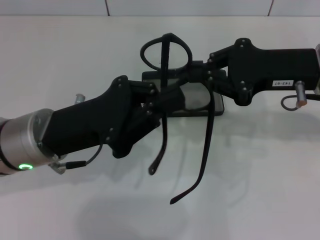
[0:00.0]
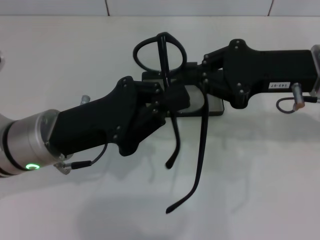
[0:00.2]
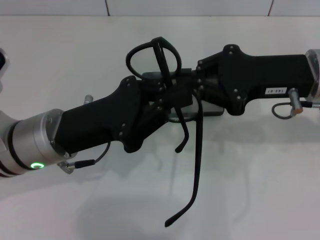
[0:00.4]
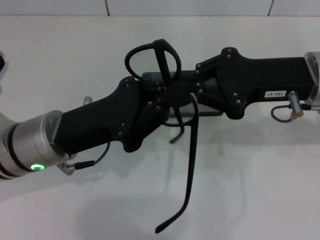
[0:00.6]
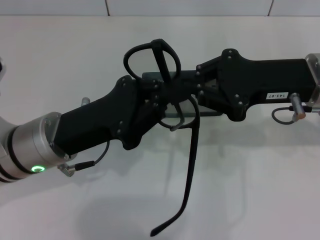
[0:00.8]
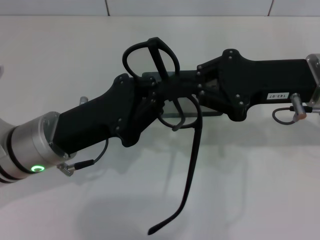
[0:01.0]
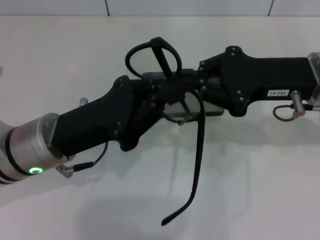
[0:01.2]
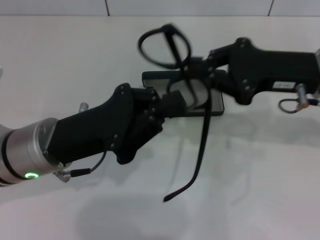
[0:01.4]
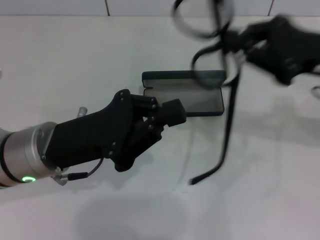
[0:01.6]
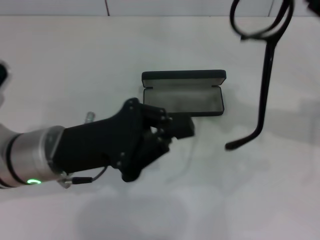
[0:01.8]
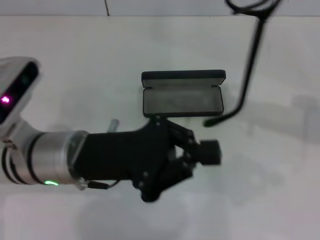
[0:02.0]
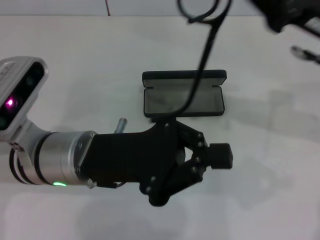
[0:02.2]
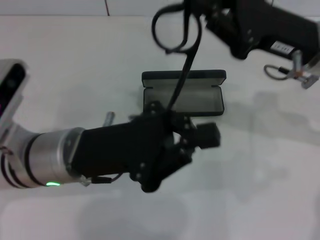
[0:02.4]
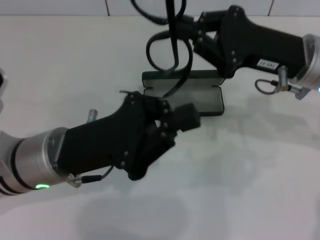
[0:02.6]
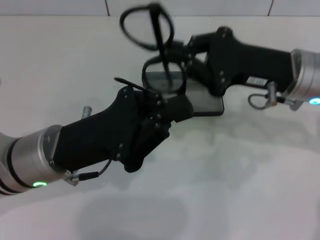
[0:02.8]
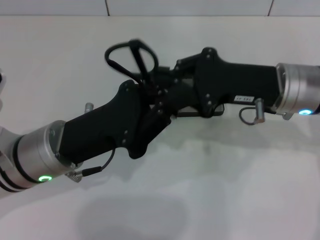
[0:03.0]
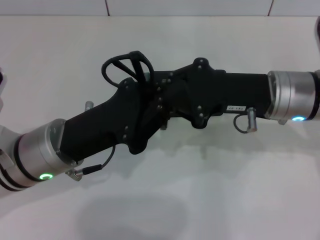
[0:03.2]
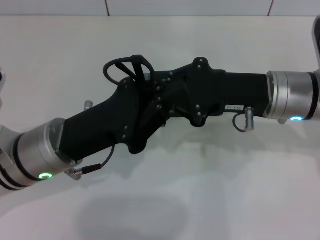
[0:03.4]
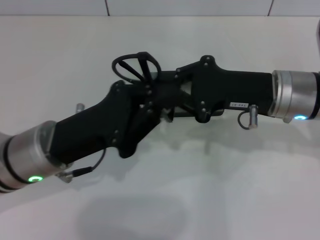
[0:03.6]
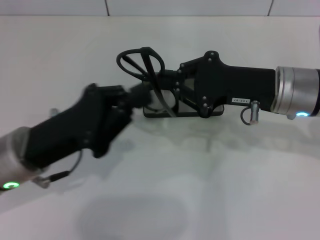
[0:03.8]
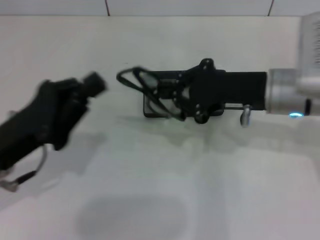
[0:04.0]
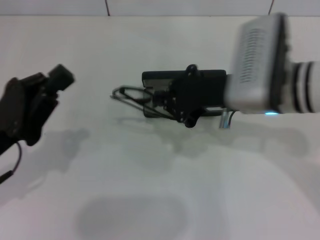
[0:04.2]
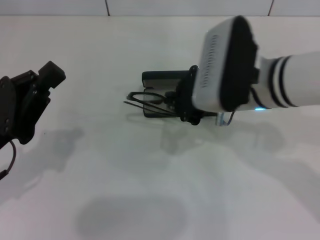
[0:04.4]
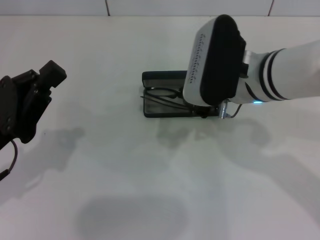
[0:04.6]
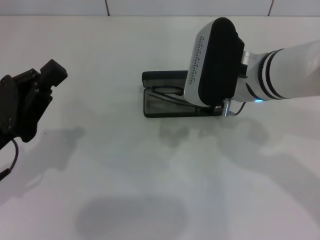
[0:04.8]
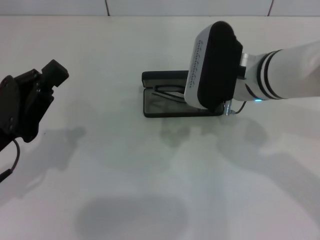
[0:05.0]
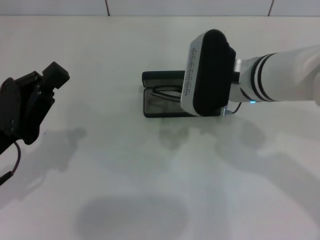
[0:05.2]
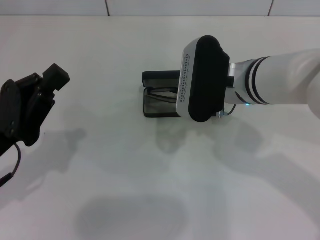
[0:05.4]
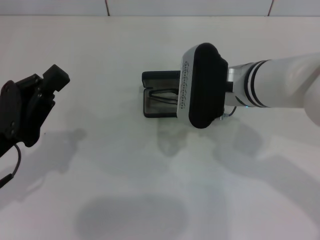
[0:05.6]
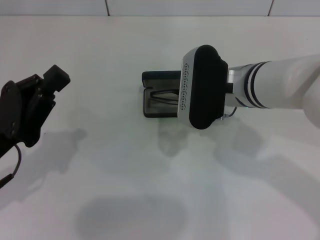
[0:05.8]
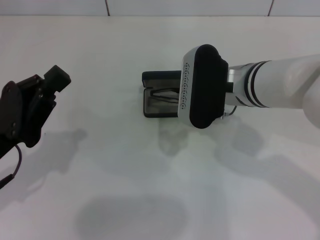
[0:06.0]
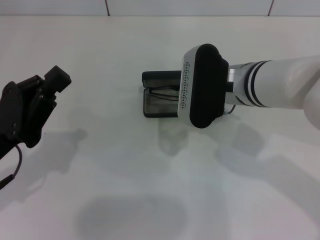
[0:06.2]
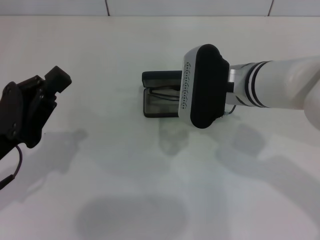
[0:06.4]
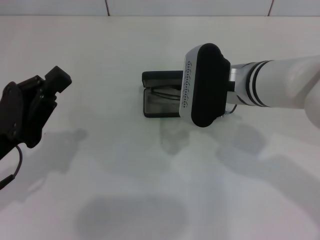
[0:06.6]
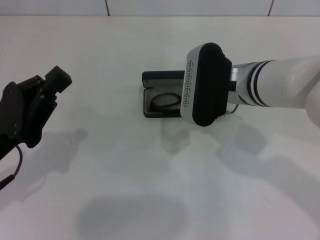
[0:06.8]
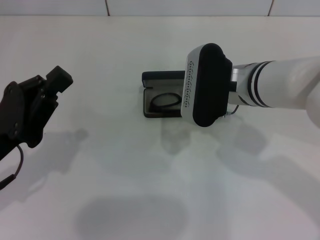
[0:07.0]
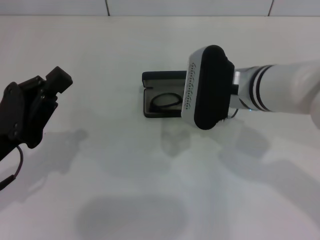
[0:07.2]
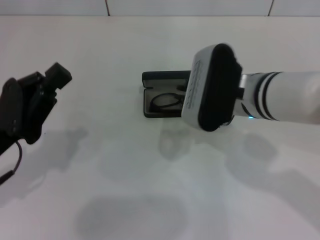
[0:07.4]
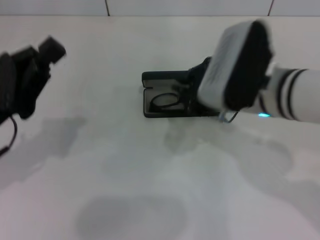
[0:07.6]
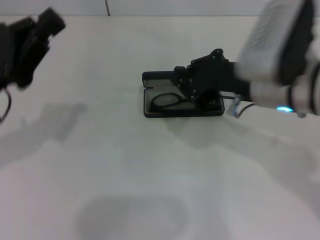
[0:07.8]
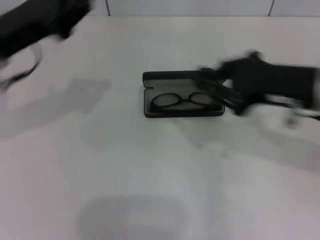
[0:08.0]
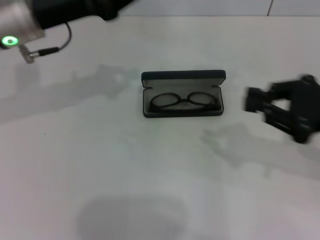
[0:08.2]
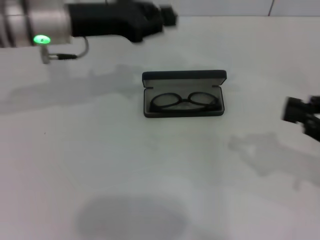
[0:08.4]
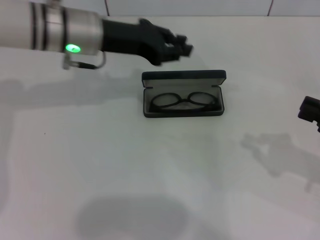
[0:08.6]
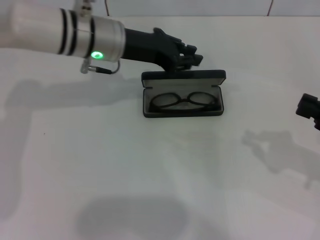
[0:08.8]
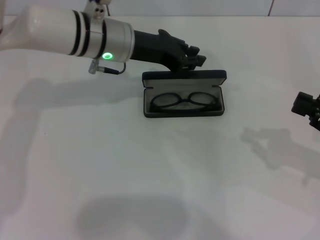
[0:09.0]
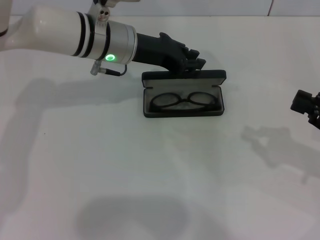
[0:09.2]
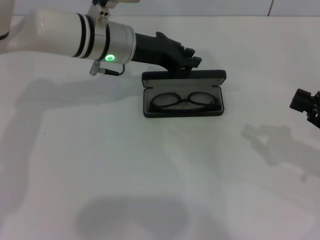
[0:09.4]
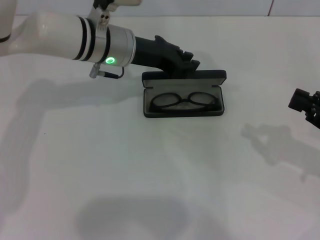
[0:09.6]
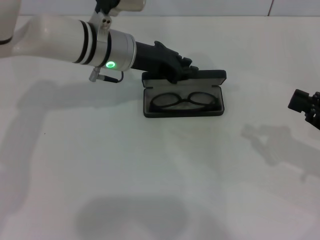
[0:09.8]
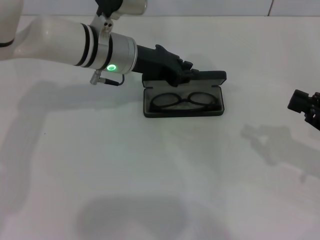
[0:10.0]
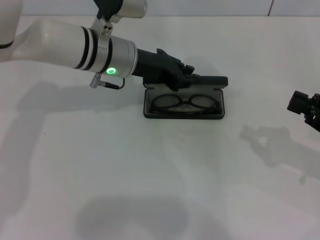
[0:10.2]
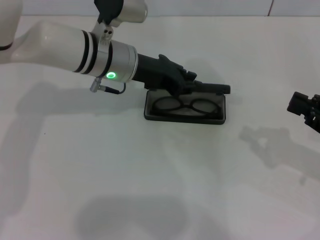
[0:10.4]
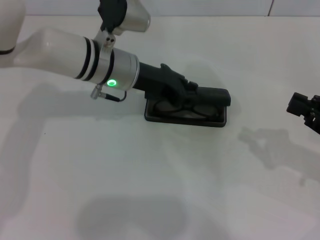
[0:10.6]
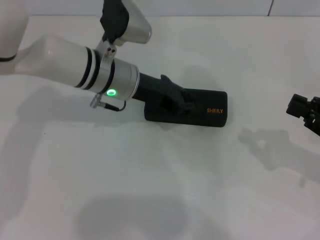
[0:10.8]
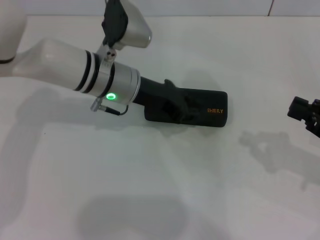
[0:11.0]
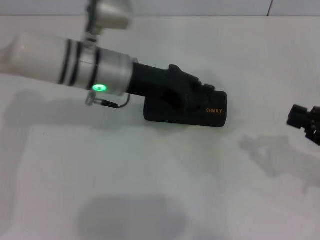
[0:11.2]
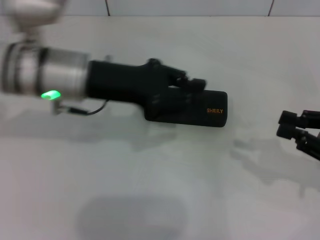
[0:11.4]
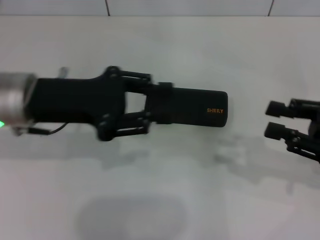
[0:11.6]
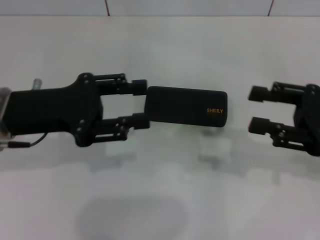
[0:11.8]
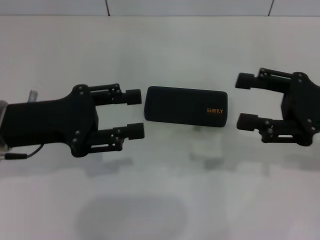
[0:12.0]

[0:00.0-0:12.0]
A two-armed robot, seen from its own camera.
Step, 0:00.0 to 0:03.4: Lift the glasses with your right hand.
Step, 0:03.6 to 0:06.6: Put the glasses into the case with your right hand.
Step, 0:06.8 to 0:10.6: Close the glasses case with your left hand.
0:01.6 to 0:03.0: The right gripper shifts about 10 cm to the left.
0:03.0 to 0:04.4: The right gripper is displaced to the left by approximately 5 cm, while the left gripper travels to the left by some 10 cm.
0:04.4 to 0:06.0: The grippers make only small movements.
0:07.6 to 0:09.0: The right gripper is displaced to the right by about 20 cm. The left gripper goes approximately 25 cm forward and to the right.
0:09.0 to 0:10.4: There are only small adjustments of the grippers.
0:10.4 to 0:12.0: The left gripper heads backward and to the left, covering some 20 cm, and opens. Meanwhile the right gripper is displaced to the left by roughly 5 cm, and opens its fingers.

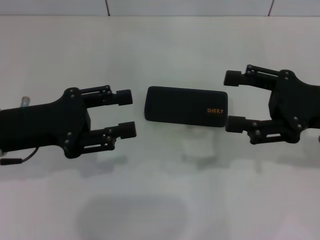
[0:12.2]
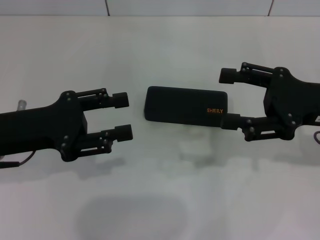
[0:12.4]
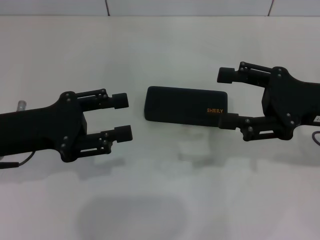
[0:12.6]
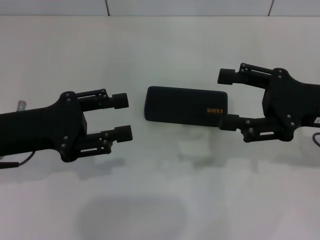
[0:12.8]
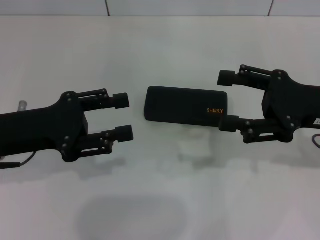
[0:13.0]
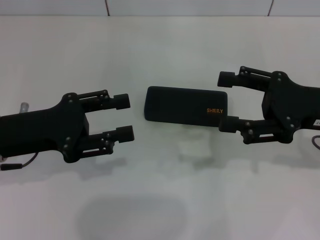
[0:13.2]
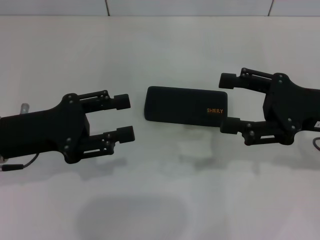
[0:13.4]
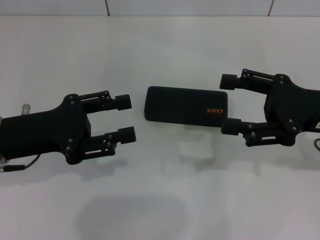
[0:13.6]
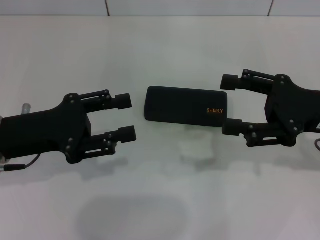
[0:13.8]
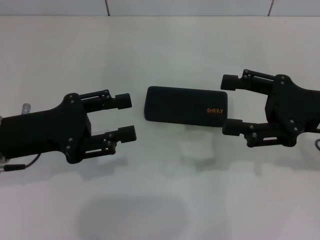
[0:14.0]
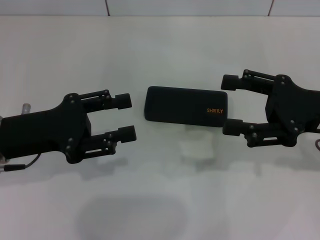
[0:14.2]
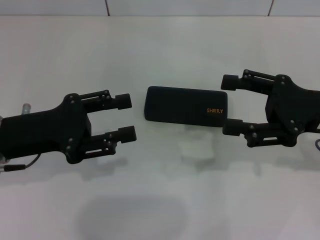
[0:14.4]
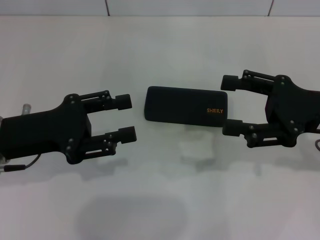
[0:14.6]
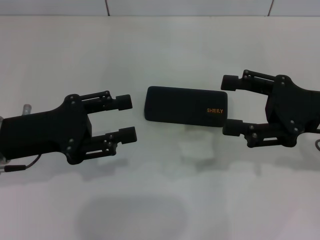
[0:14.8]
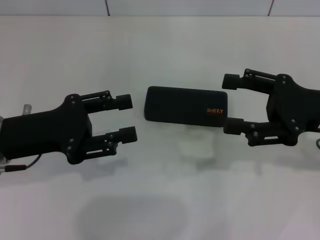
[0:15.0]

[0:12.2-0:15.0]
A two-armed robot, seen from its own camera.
0:12.2 to 0:15.0: Both grippers stay about where they are.

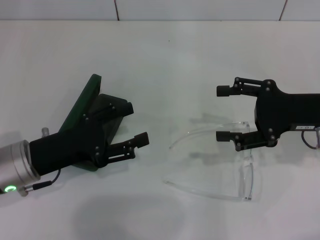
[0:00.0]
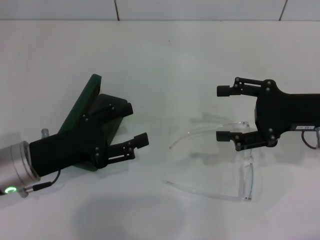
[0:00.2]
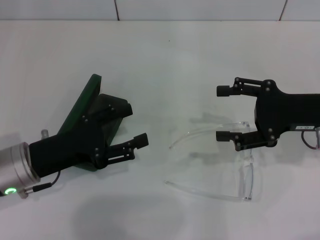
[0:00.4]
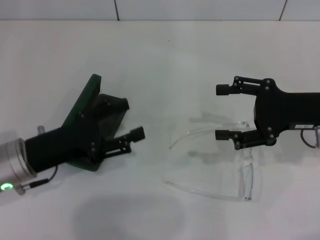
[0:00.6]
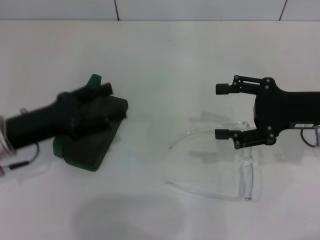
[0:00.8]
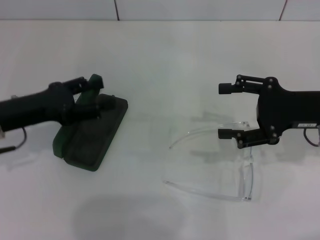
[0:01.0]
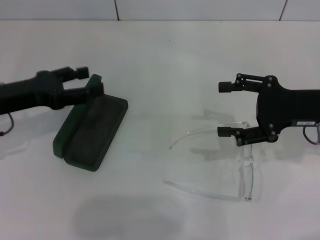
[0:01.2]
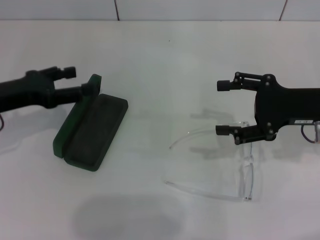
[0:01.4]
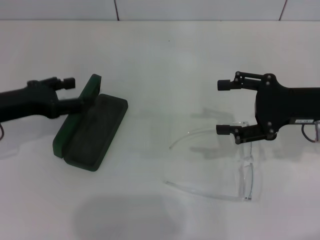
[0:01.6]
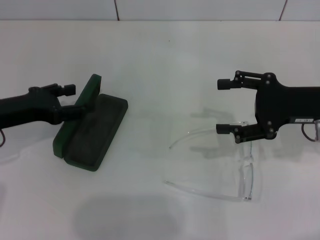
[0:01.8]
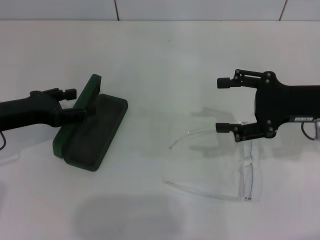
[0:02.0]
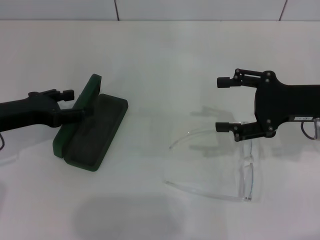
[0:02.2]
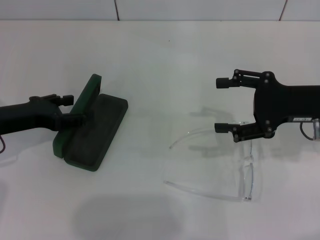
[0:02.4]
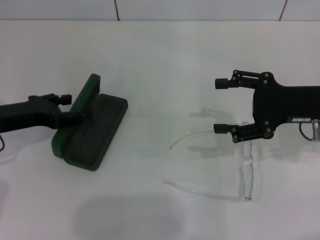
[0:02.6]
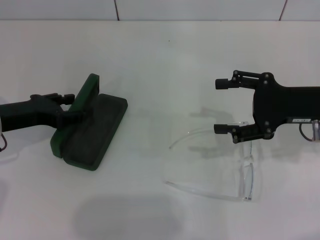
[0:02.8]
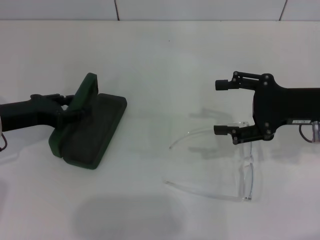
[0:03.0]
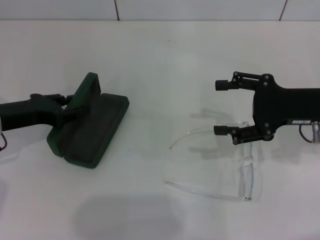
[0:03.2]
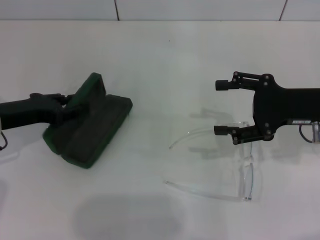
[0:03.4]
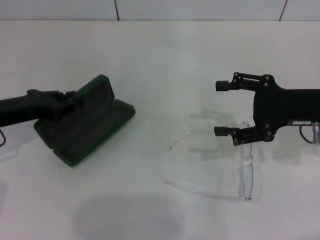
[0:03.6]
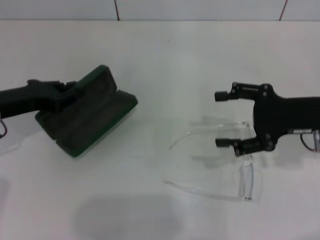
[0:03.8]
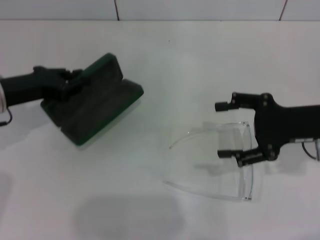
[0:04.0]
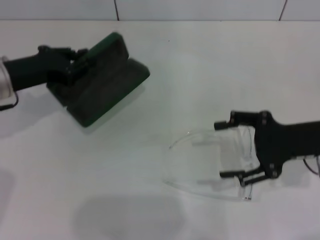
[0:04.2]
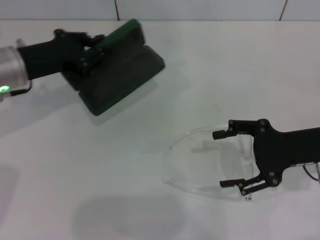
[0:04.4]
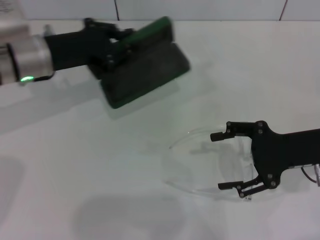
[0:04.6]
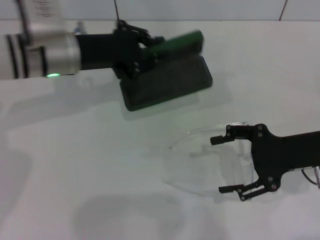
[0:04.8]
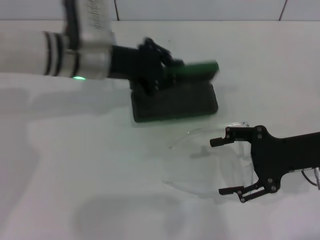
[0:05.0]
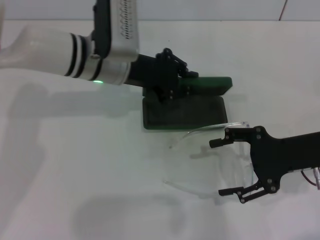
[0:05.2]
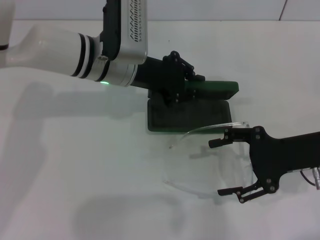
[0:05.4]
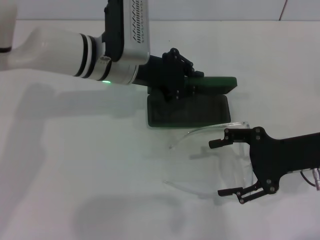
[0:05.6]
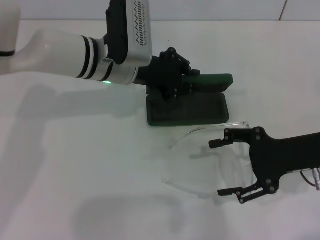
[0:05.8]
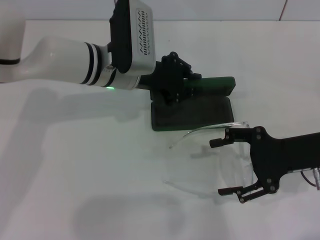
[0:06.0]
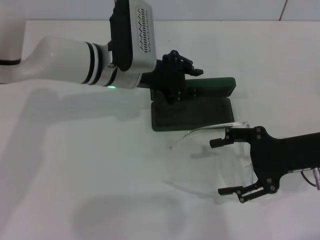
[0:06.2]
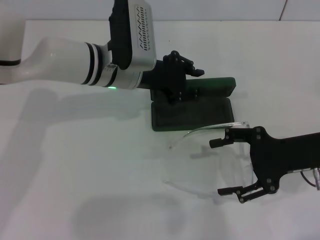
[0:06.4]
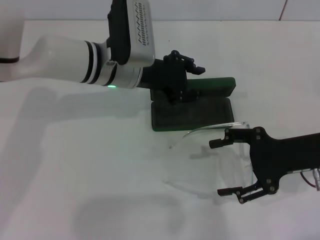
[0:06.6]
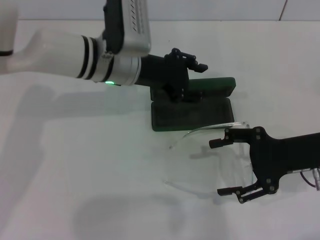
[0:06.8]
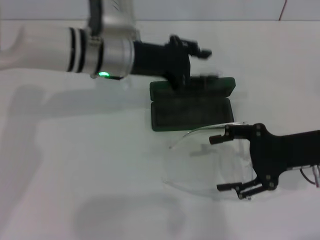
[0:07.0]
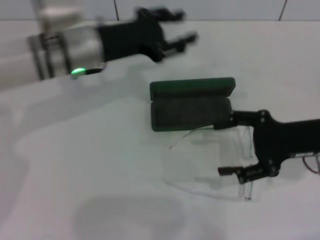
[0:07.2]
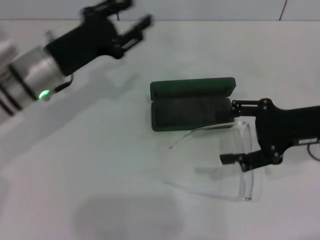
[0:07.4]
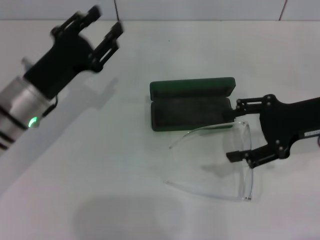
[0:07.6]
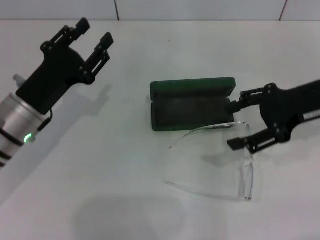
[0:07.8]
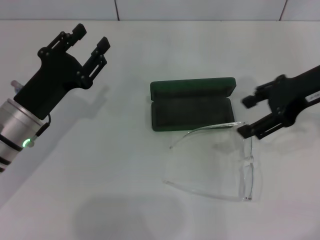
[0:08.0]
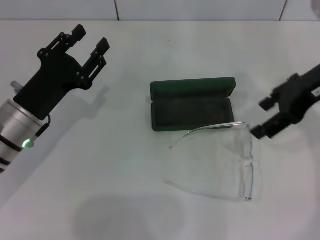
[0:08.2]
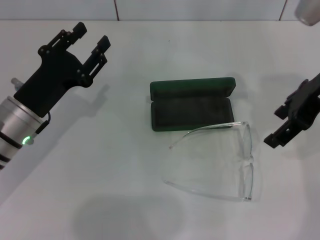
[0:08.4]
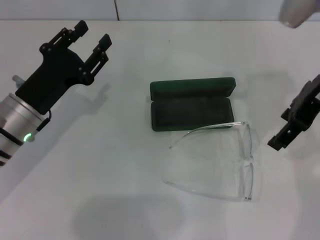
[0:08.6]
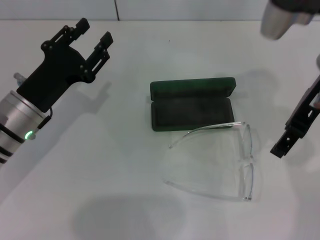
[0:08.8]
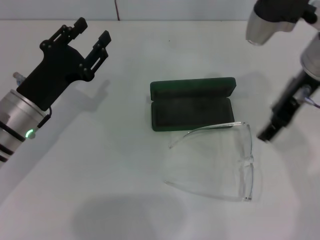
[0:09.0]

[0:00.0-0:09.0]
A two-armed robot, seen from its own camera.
Step, 0:00.0 to 0:03.4: Grab the glasses case with your left hand.
Step, 0:03.6 to 0:06.4: Place the glasses case in the center of the table with your left hand.
0:00.0 to 0:01.6: The left gripper travels to the left and forward by about 10 cm.
0:01.6 to 0:03.0: The grippers make only small movements.
0:03.0 to 0:04.4: The left gripper changes place by some 10 cm, and closes.
0:04.4 to 0:06.0: The left gripper heads to the right, covering about 15 cm.
0:06.0 to 0:07.6: The left gripper is displaced to the left and backward by some 15 cm, and opens. Meanwhile the right gripper changes place by approximately 5 cm.
0:07.6 to 0:09.0: The right gripper travels to the left and upward by roughly 10 cm.
